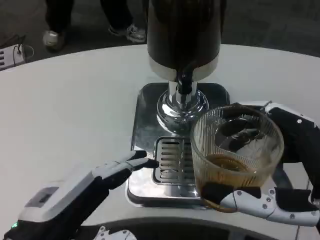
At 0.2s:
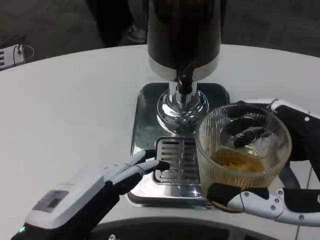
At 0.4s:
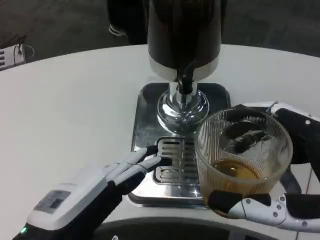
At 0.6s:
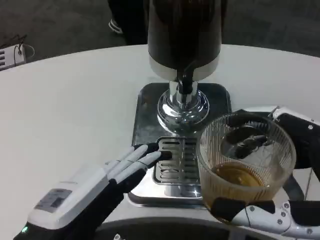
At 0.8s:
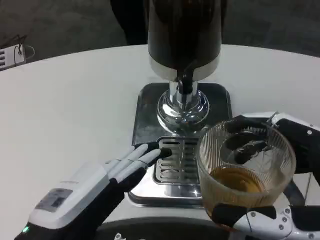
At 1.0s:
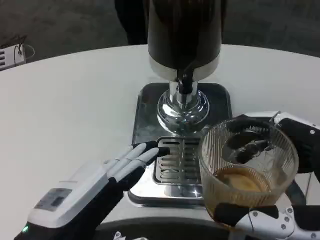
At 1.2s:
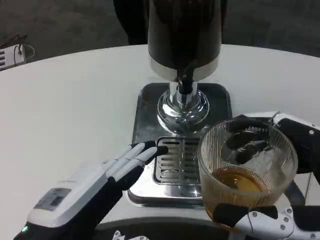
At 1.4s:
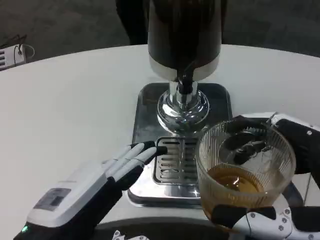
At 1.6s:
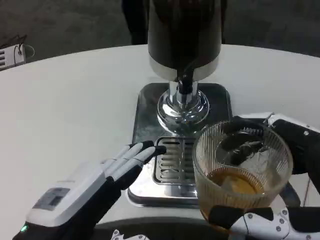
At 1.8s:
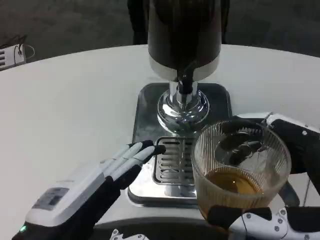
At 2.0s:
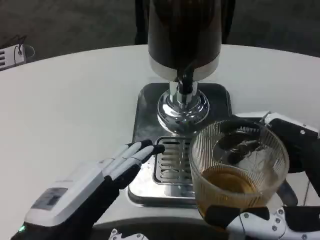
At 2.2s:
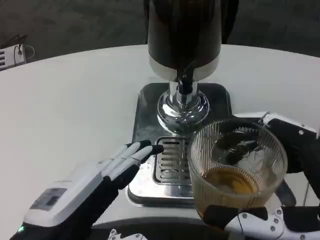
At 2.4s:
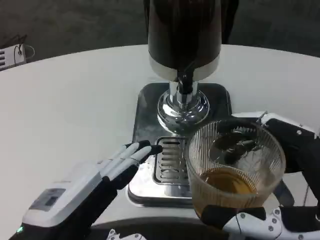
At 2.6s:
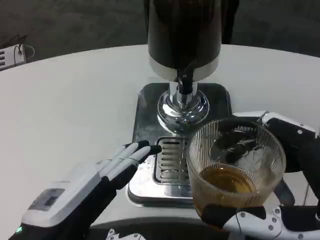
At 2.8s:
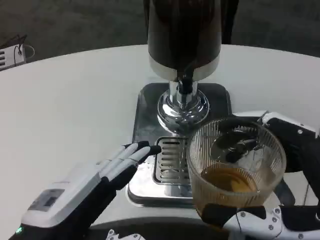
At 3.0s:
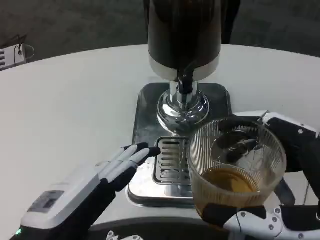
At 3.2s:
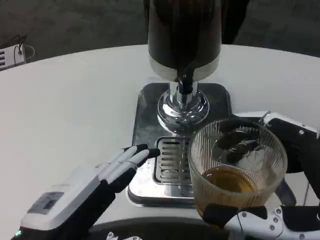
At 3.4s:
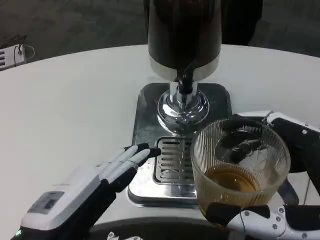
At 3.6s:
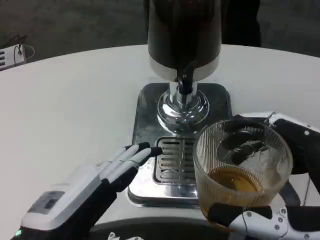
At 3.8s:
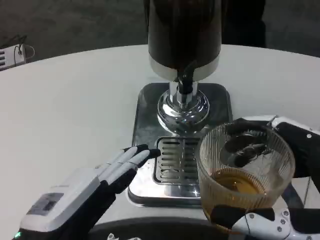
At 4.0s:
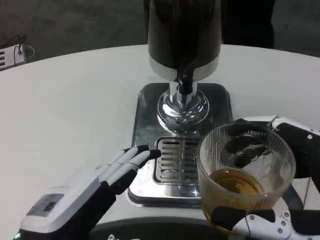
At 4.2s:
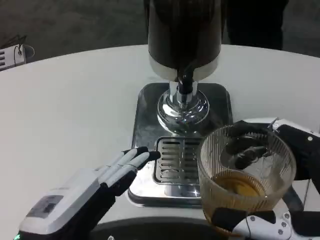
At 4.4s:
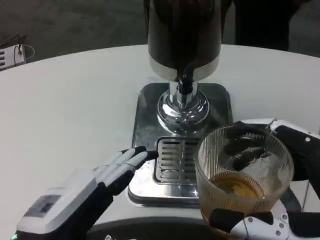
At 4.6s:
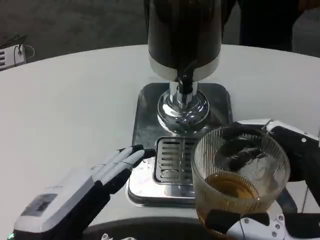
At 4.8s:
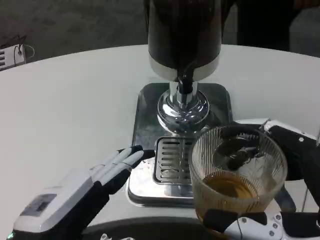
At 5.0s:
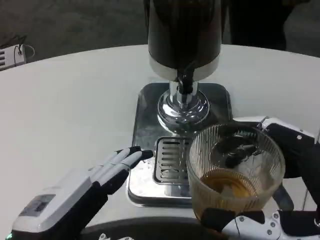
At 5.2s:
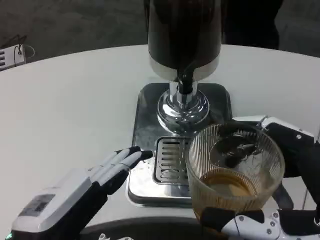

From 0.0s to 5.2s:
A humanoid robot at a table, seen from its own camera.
Task of the whole recording: Grasp the cup under the faucet to collect the drink, then remove the cup.
From 1.8s to 5.2s: Both hands stay about where they are.

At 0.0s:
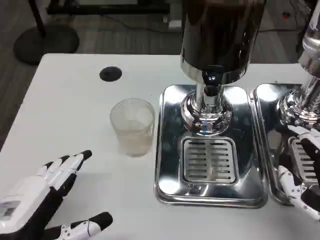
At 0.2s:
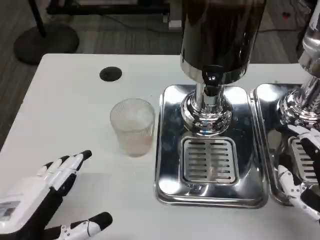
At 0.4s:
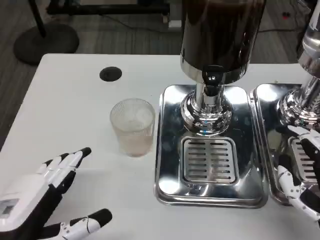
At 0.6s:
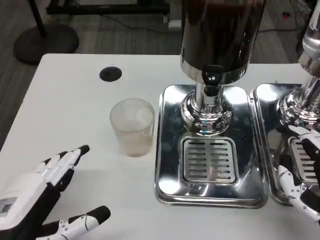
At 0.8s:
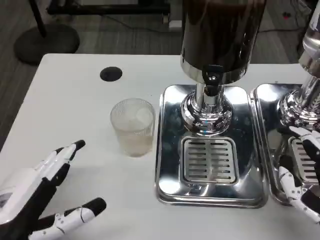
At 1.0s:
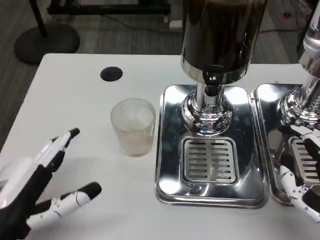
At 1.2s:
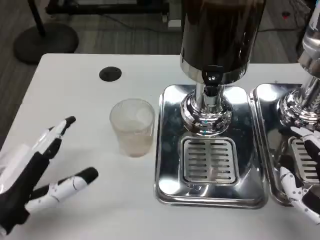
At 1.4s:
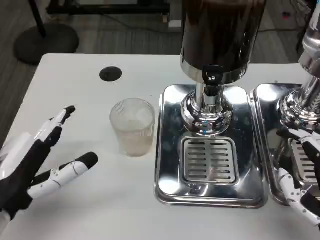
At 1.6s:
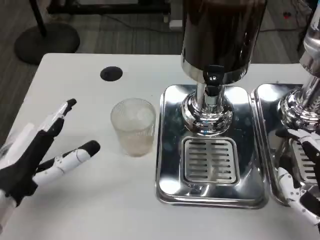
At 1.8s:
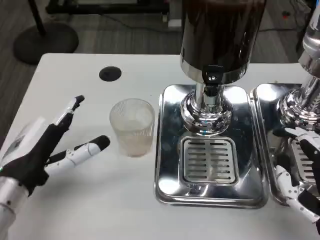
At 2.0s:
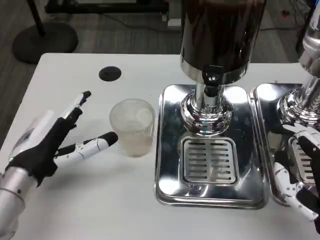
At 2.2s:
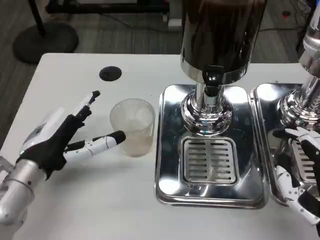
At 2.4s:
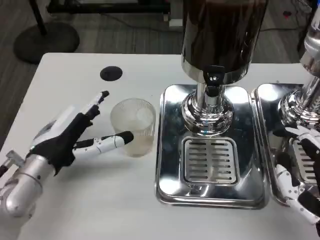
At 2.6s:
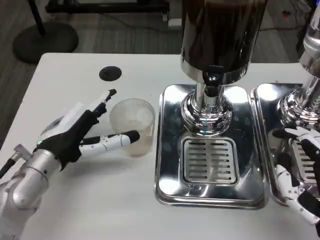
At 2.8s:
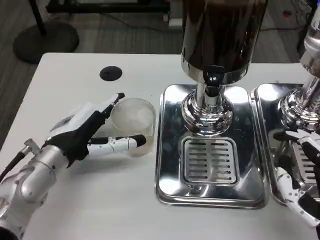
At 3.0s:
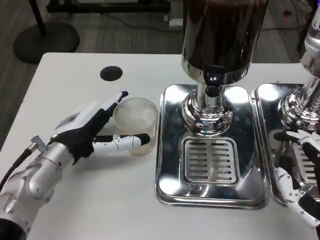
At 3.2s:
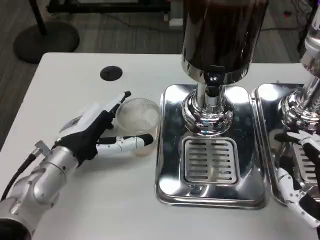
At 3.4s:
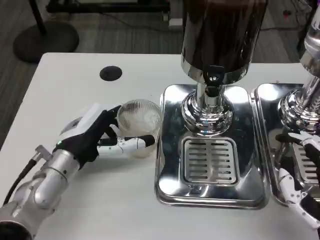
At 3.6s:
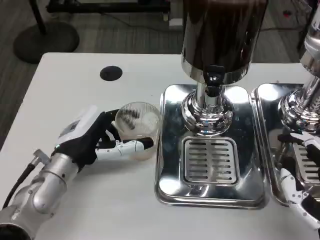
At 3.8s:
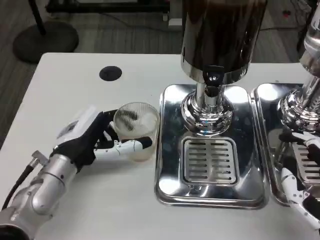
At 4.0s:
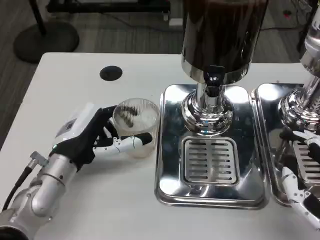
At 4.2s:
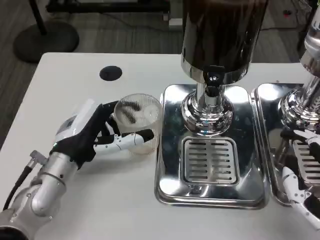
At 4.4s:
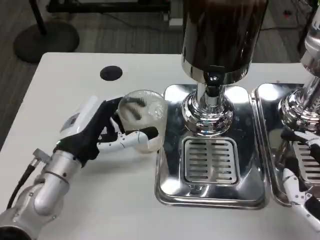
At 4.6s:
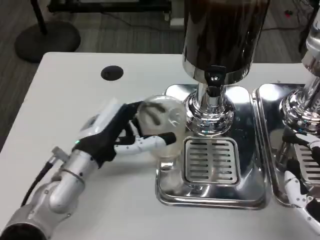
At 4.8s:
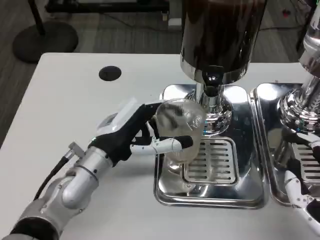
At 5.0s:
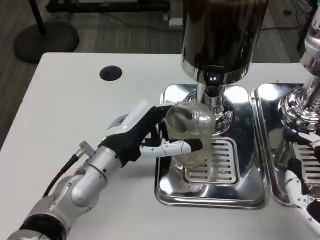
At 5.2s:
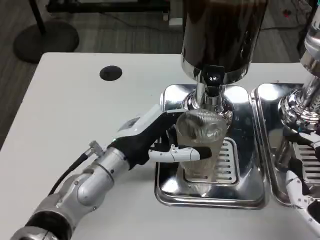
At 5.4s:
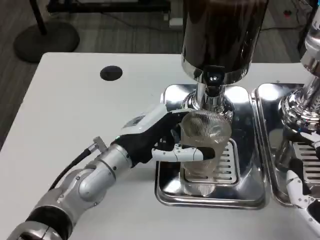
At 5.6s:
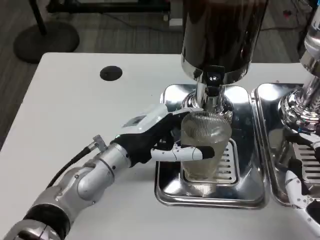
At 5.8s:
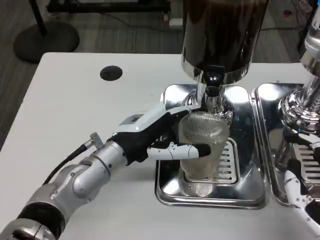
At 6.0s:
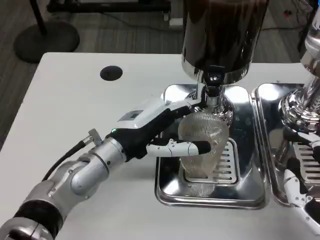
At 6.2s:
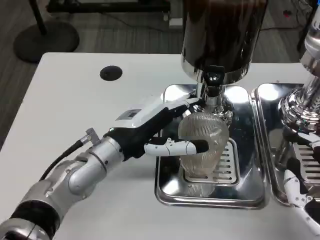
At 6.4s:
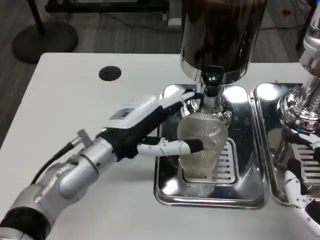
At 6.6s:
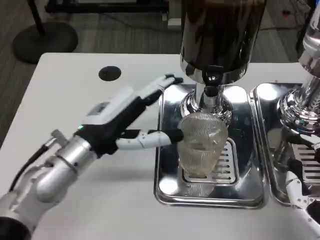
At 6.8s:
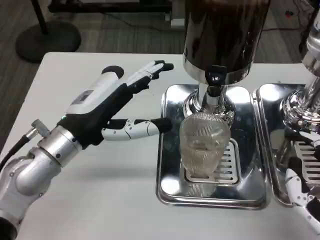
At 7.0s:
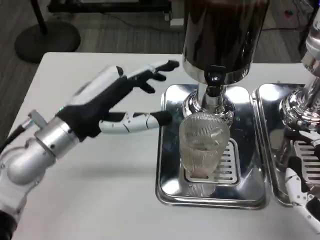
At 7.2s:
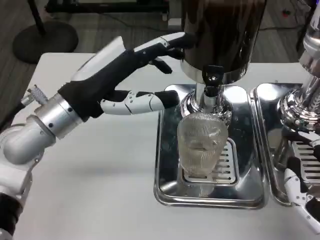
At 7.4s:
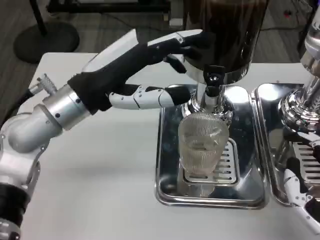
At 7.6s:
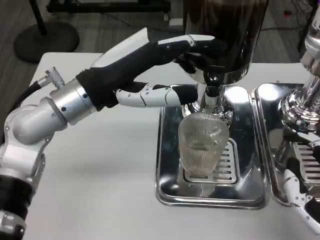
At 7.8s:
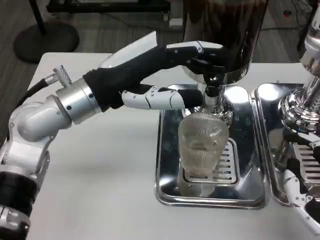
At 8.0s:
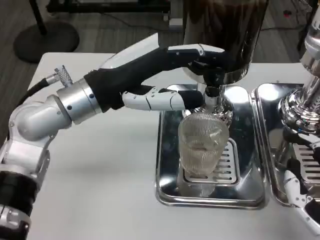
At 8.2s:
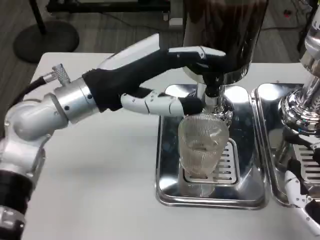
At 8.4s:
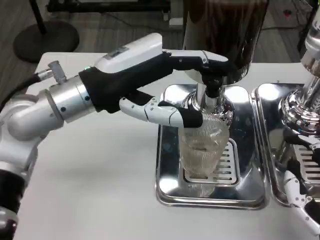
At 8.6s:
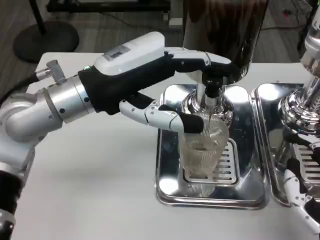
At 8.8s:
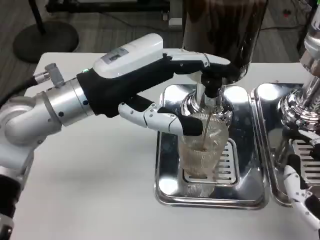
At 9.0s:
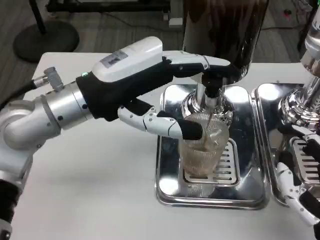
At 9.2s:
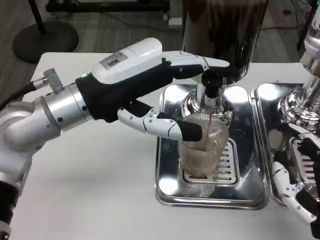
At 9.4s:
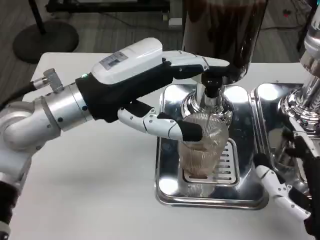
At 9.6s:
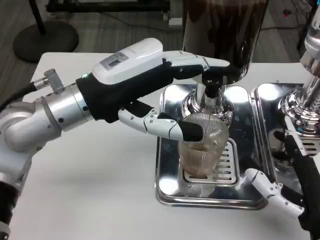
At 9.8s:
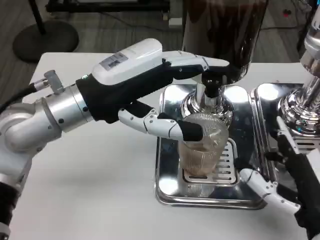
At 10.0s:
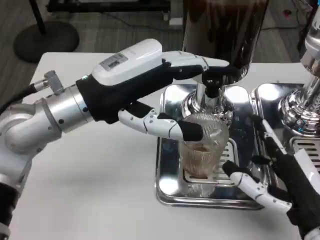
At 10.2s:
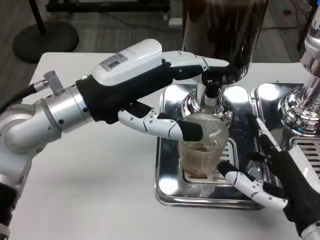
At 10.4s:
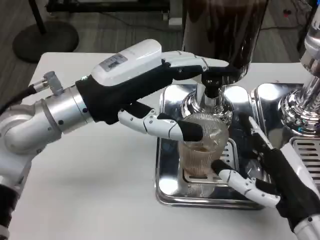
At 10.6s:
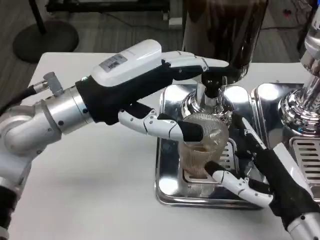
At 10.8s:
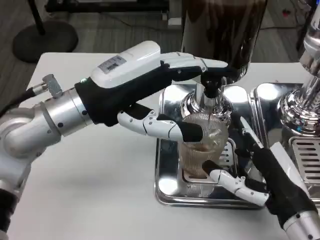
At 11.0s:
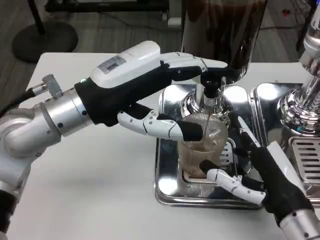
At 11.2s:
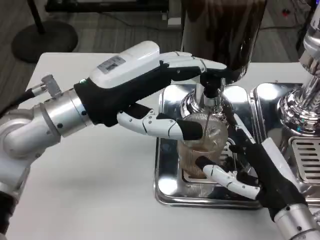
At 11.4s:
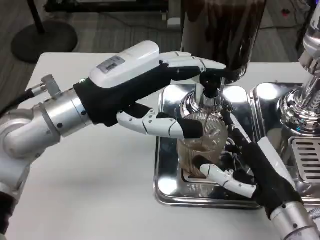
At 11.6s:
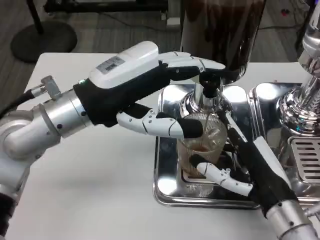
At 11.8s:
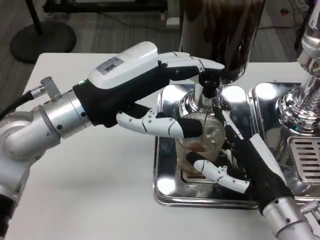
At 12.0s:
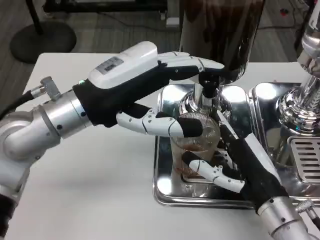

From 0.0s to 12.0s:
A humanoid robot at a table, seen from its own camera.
Task of the whole recording: Grasp the cup under the faucet to collect the drink, then remove the cup.
From 0.0s to 1.6s: The left hand travels forward by approximately 10 cm.
From 1.6s to 3.0s: The left hand travels forward by approximately 10 cm.
From 3.0s to 4.4s: The hands stay close to where they were, moving slightly.
From 4.4s to 6.0s: The left hand is displaced to the right by approximately 5 cm.
From 6.0s to 7.6s: The left hand goes approximately 10 cm upward.
From 10.4s to 12.0s: The right hand shifts by about 5 cm.

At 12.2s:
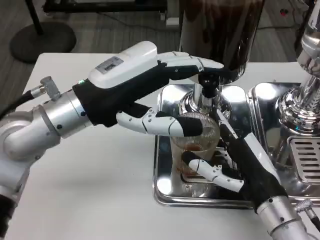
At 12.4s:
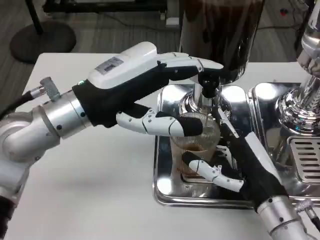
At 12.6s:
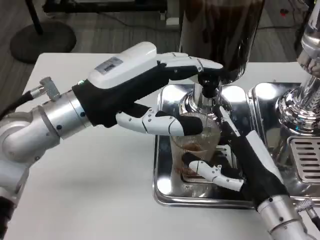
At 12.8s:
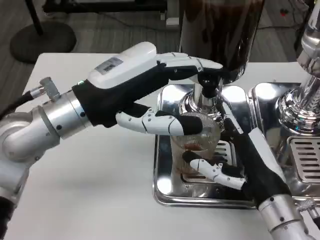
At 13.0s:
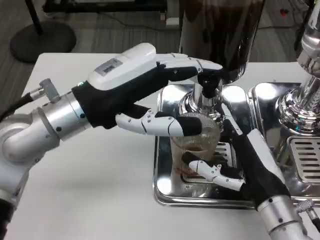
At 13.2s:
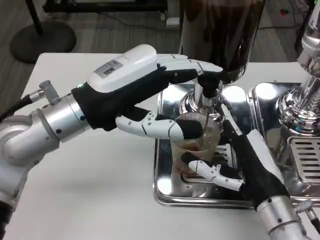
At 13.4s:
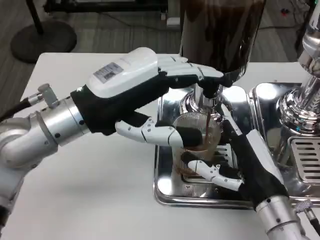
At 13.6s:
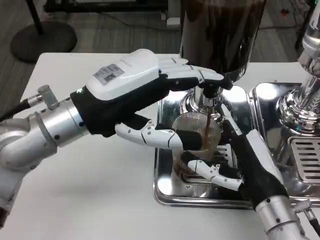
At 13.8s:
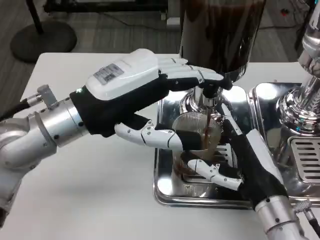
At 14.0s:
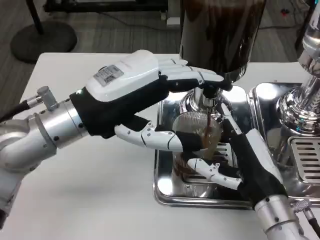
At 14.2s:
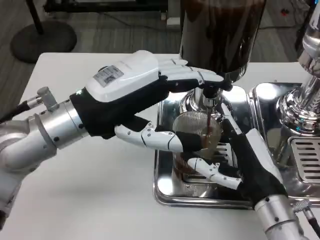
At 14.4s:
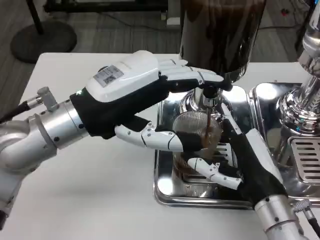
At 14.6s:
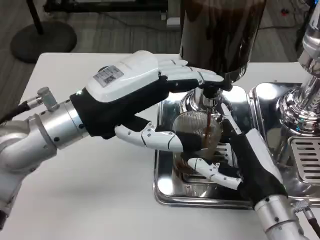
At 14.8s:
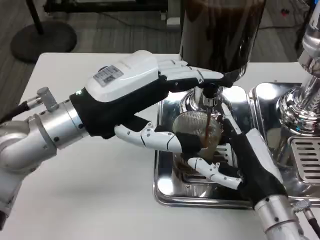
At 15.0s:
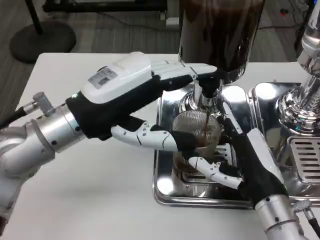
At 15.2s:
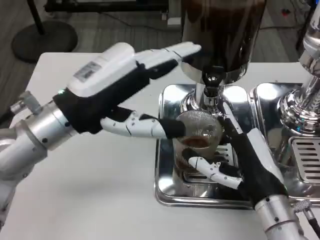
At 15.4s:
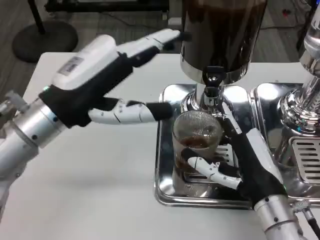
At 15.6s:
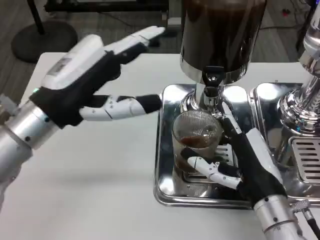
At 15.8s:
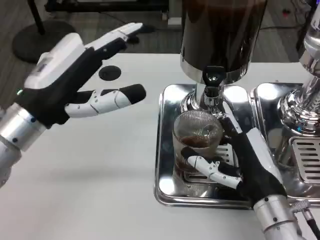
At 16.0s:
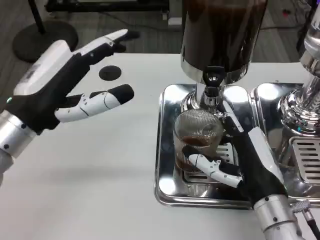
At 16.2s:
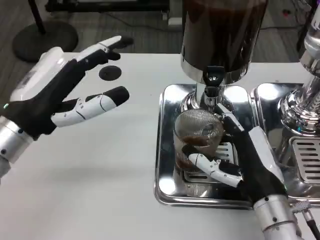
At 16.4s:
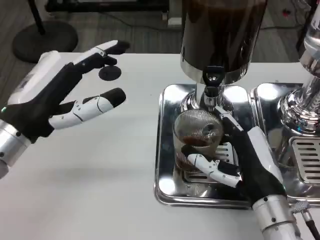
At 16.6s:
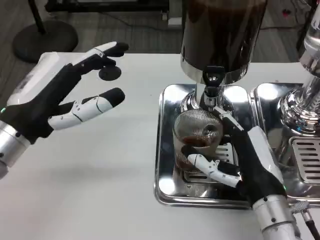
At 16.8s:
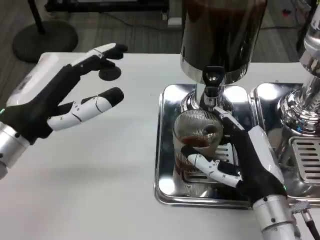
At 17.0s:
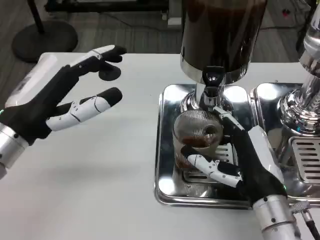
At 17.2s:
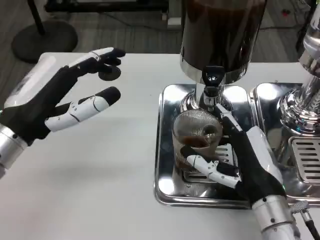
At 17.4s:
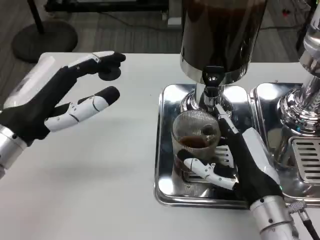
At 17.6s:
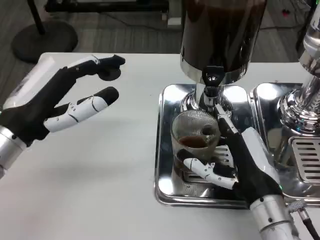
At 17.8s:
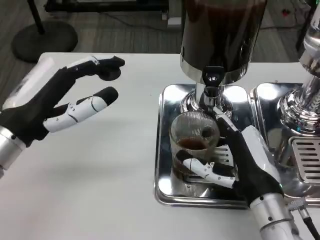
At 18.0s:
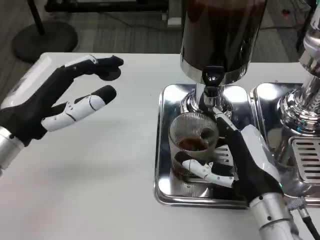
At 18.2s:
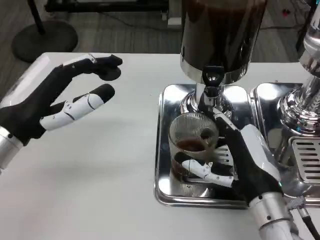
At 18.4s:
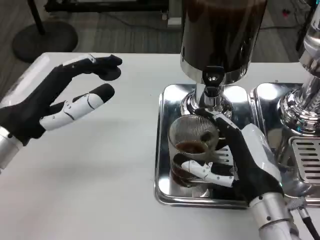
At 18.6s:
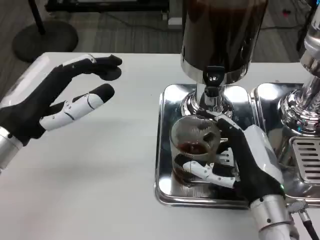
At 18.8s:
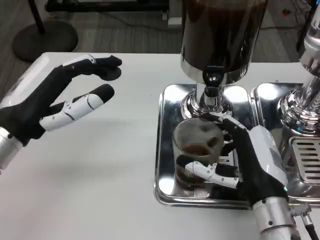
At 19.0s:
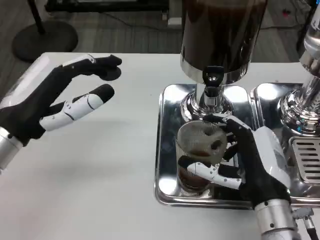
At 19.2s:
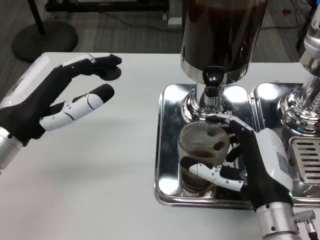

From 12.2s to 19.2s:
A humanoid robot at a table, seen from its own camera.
Task of the whole recording: Grasp the cup under the faucet to collect the drink, then remove the cup.
From 13.6s to 15.0s: Both hands stay put.
From 15.0s to 16.4s: The left hand goes approximately 5 cm to the left.
From 16.4s to 17.8s: Both hands stay put.
From 17.8s to 19.2s: The hands stay close to where they were, moving slightly.
